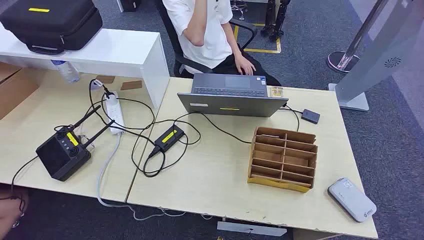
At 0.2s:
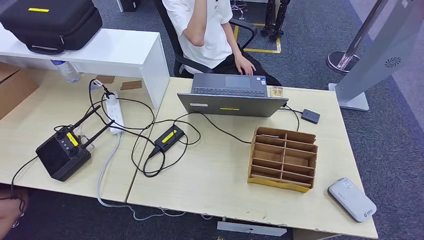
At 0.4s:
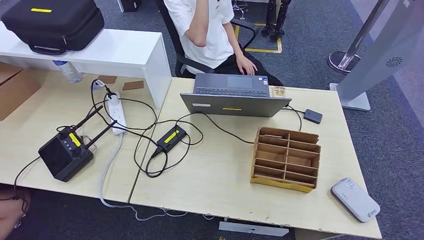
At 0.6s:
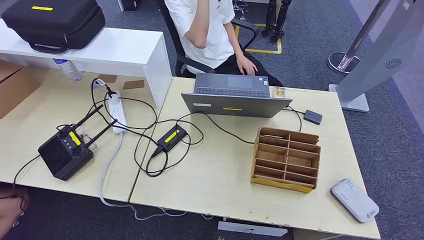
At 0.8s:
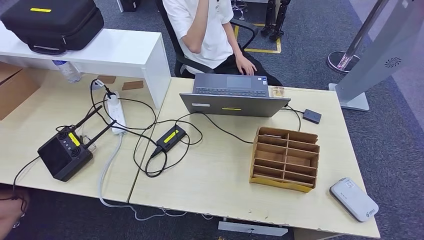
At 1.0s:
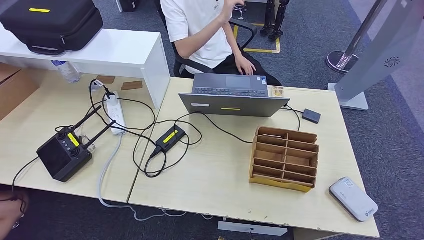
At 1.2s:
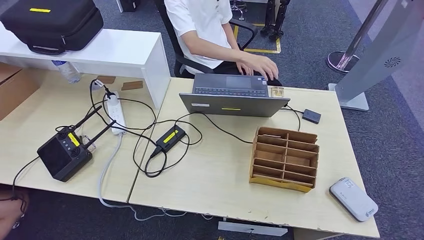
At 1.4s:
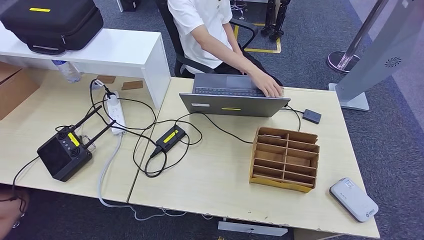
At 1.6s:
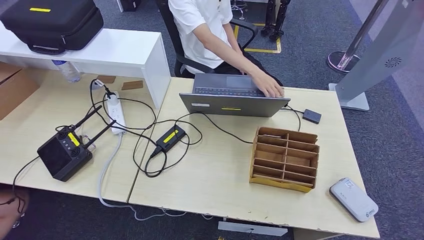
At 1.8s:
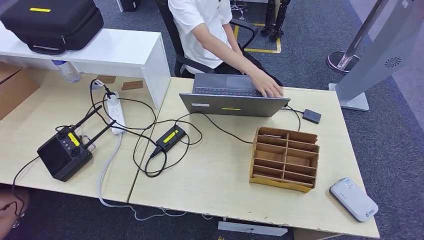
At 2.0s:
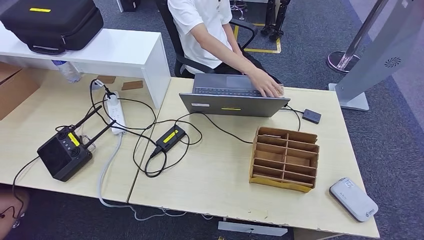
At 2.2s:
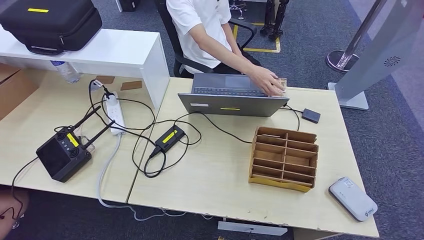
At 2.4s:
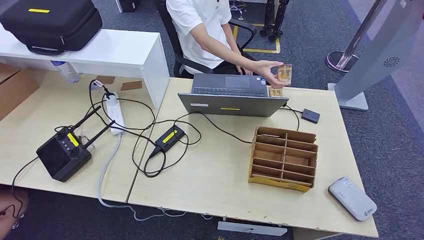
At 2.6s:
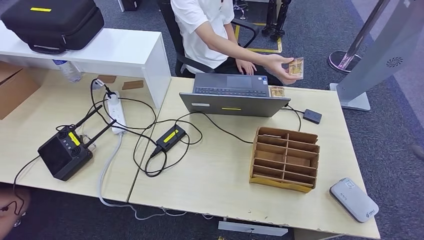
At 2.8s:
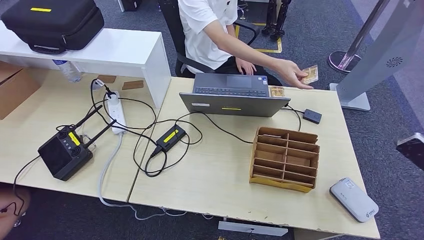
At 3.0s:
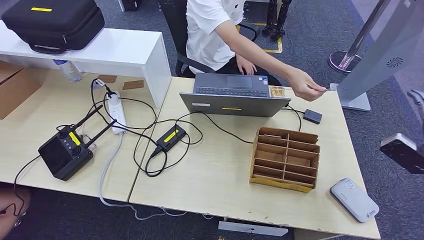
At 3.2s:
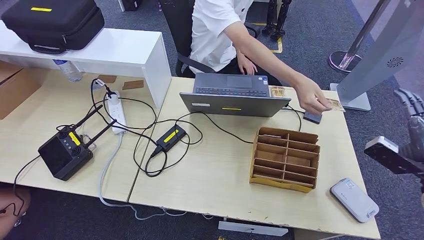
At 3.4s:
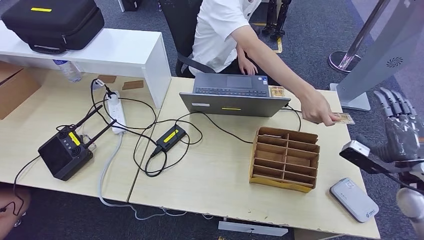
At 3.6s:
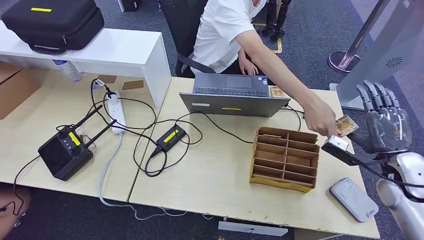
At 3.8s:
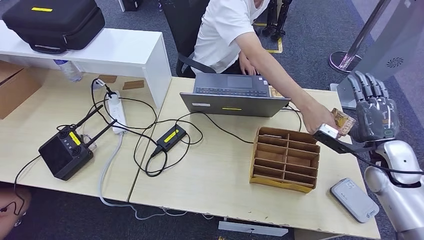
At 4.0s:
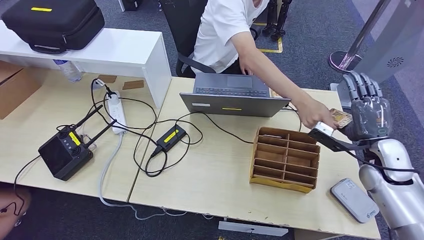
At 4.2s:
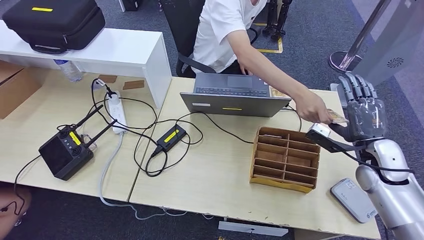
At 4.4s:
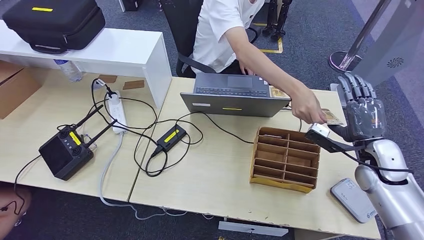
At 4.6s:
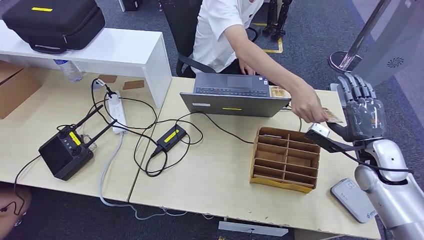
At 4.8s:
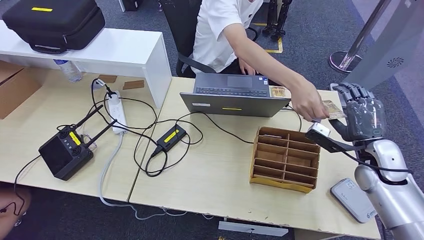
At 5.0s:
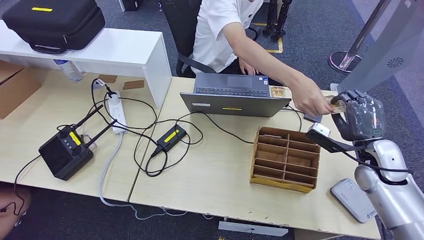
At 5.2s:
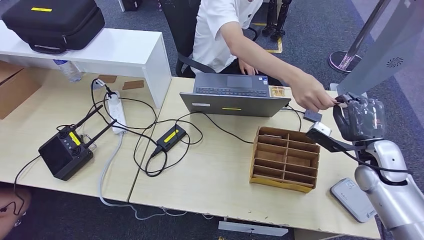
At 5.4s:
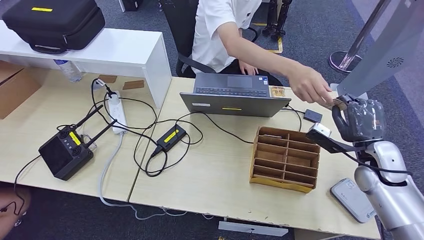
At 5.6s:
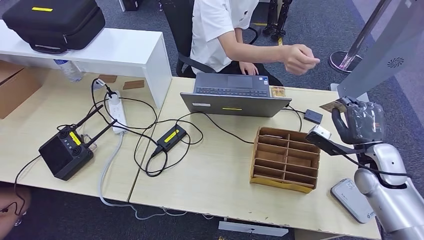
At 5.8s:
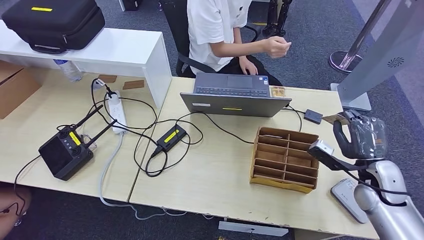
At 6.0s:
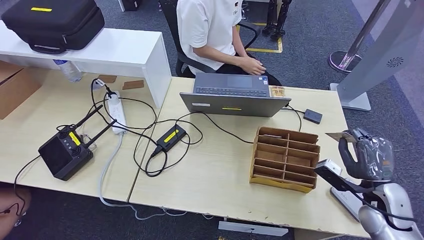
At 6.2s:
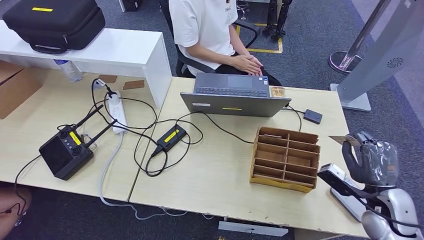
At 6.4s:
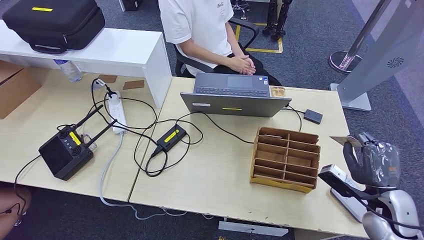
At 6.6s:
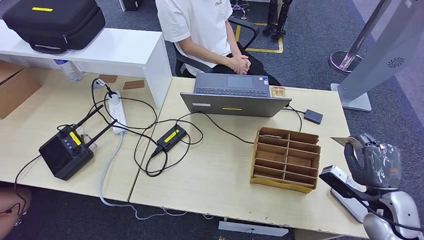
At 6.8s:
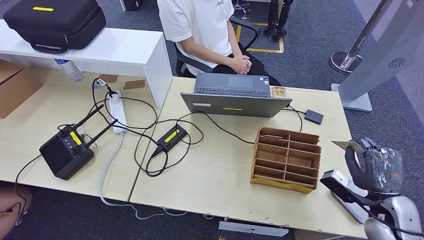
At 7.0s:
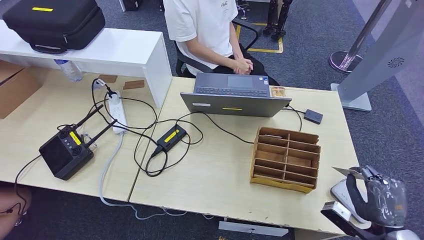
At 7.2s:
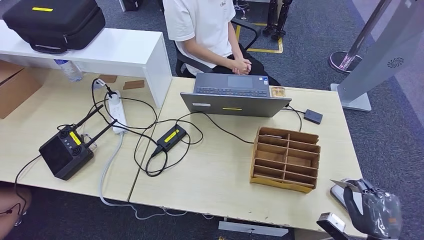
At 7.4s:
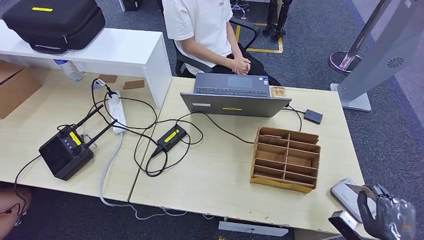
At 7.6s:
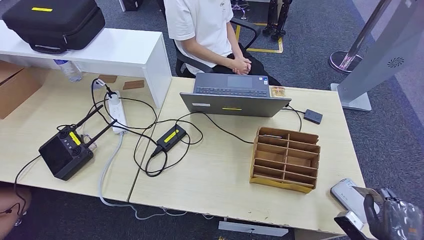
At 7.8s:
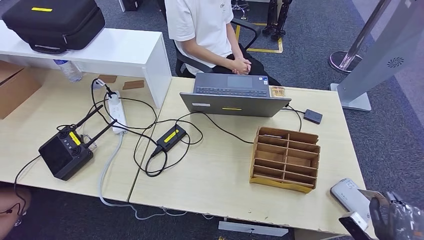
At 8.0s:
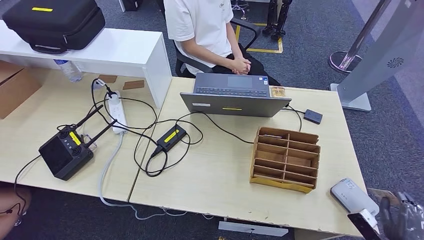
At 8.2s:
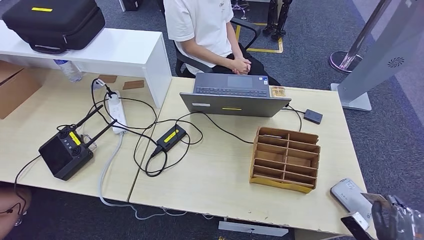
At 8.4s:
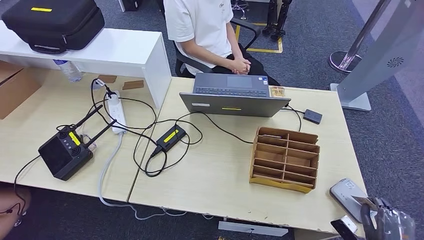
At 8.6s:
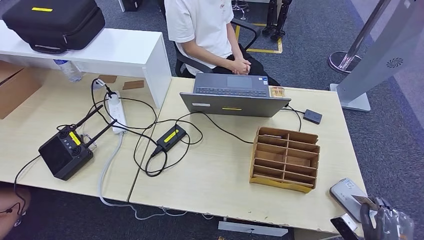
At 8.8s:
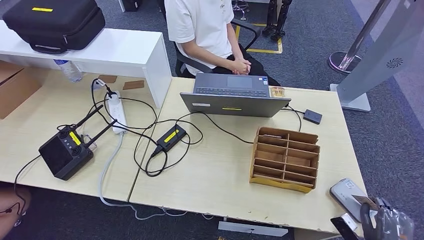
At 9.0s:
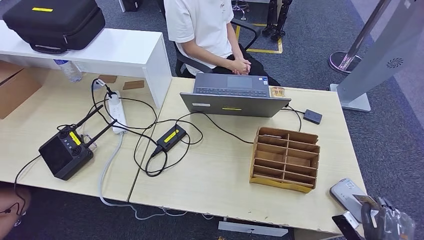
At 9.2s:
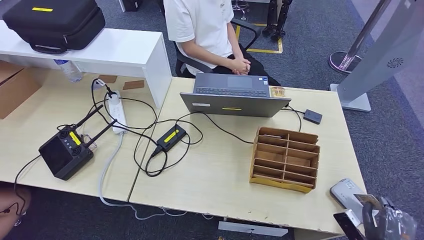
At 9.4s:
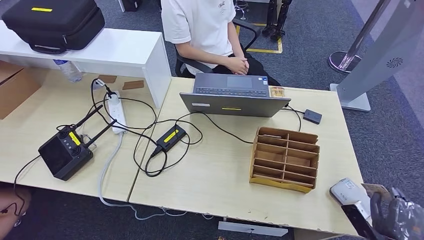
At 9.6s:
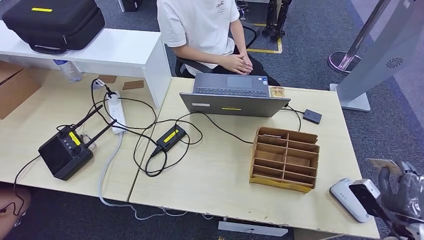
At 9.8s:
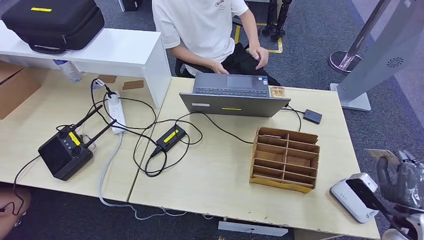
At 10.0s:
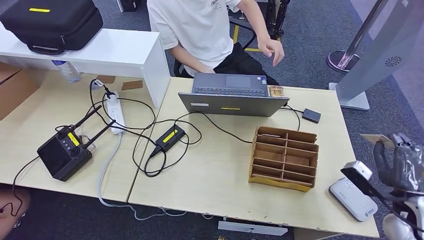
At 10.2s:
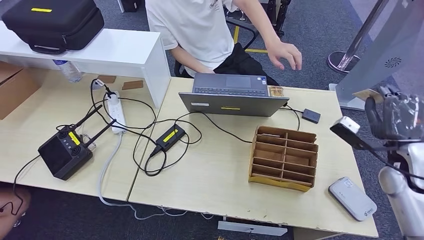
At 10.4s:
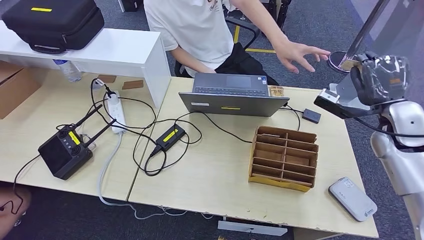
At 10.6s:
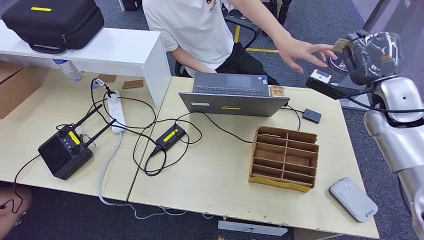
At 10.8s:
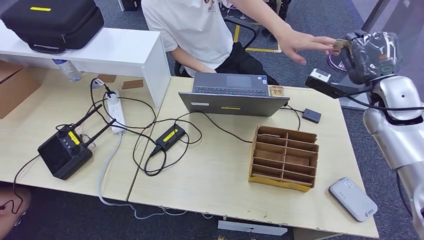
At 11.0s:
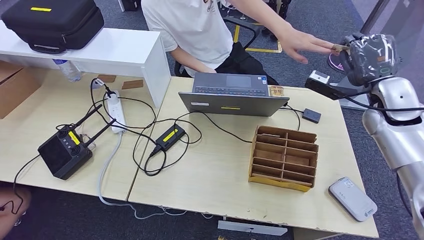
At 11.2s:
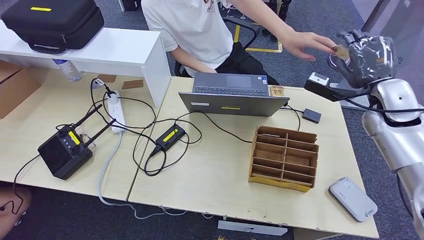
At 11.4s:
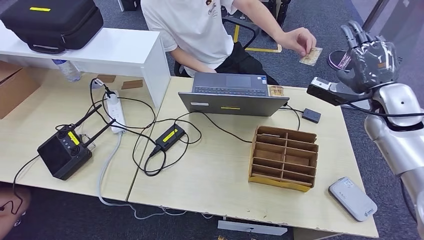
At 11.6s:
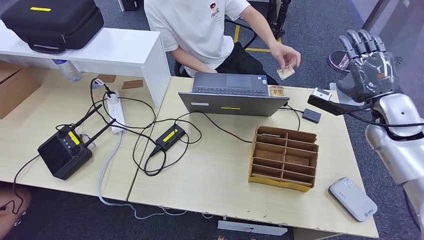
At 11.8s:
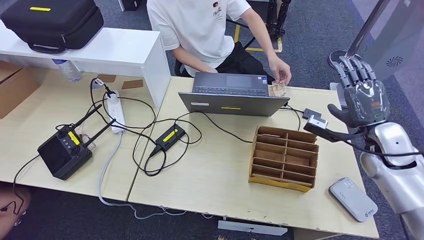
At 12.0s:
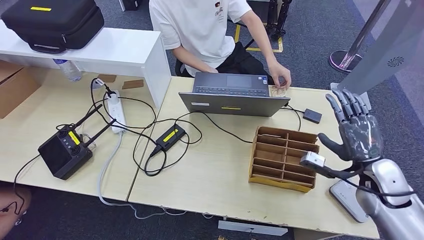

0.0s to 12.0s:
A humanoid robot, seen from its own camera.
Step, 0.0s to 2.8s: Take the ID card from the person's hand.
Step, 3.0s to 7.4s: Place the ID card on the card reader.
Step, 7.6s to 11.4s: Hand the ID card to the person.
1.6s to 3.0s: The right hand moves forward, to the left and upward, about 35 cm.
3.0s to 4.4s: The right hand heads to the left and forward, covering some 15 cm.
4.4s to 6.0s: The right hand moves backward and downward, approximately 10 cm.
6.0s to 7.6s: The right hand shifts about 15 cm backward and downward.
7.6s to 9.0s: The right hand travels downward by approximately 5 cm.
10.4s to 12.0s: The right hand moves downward and backward, roughly 10 cm.

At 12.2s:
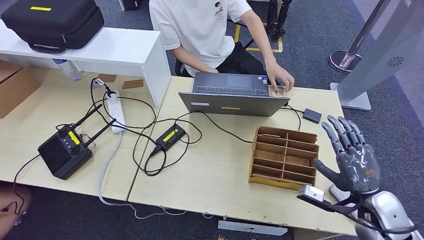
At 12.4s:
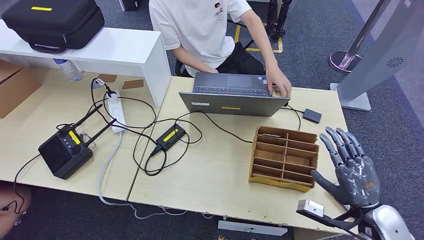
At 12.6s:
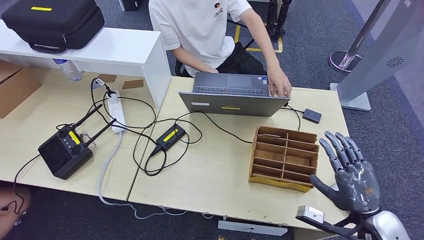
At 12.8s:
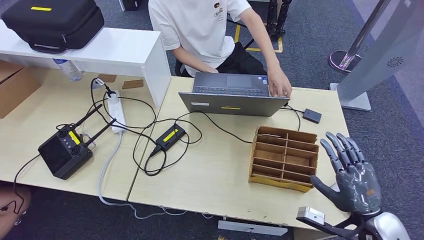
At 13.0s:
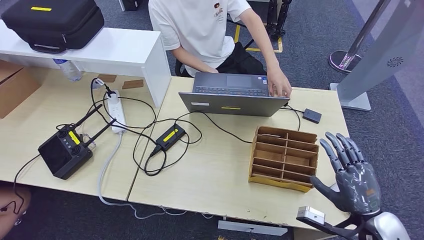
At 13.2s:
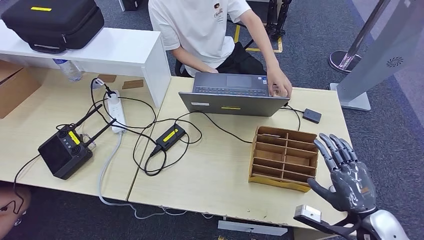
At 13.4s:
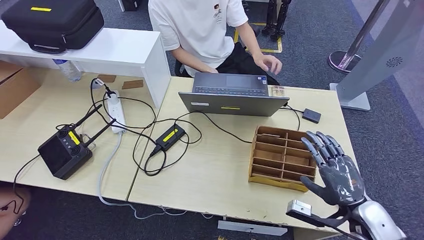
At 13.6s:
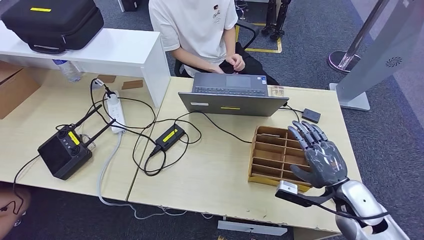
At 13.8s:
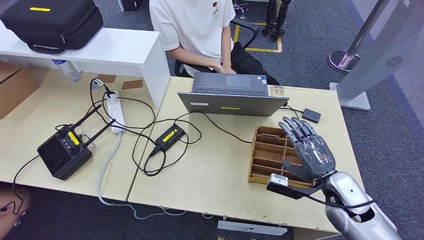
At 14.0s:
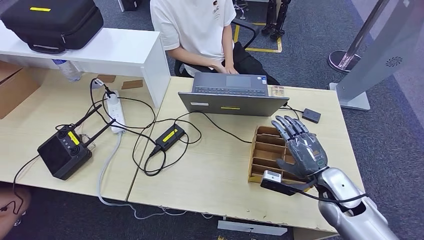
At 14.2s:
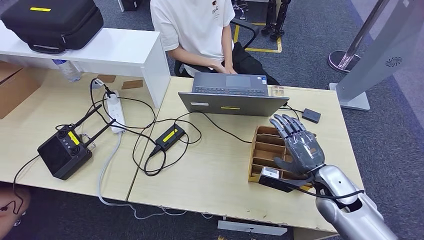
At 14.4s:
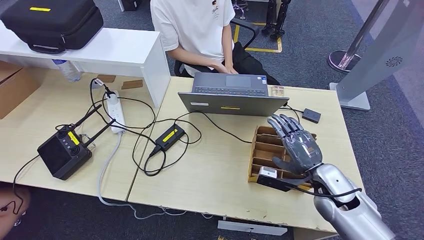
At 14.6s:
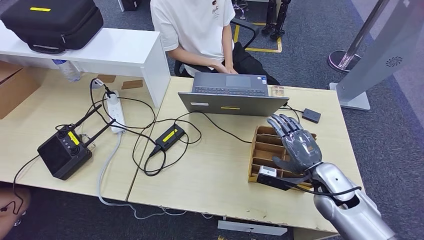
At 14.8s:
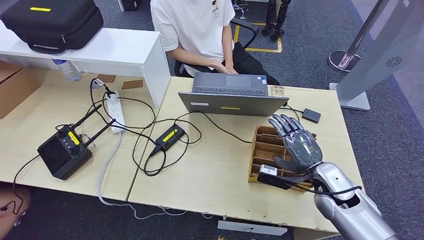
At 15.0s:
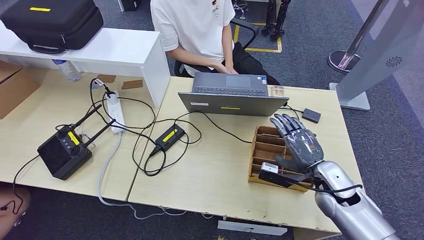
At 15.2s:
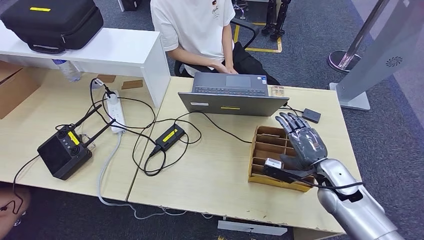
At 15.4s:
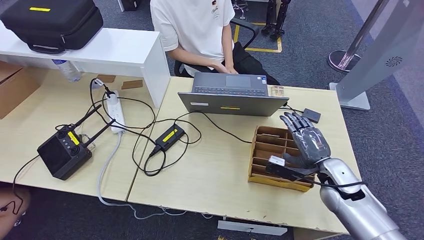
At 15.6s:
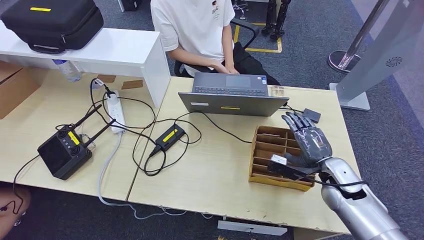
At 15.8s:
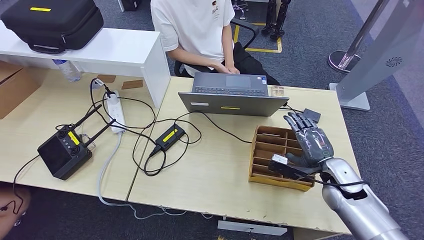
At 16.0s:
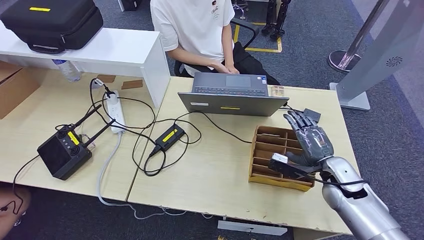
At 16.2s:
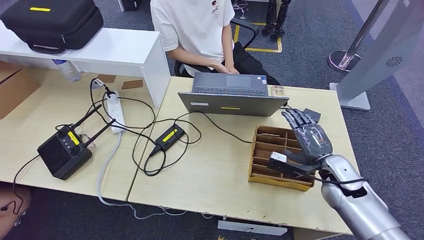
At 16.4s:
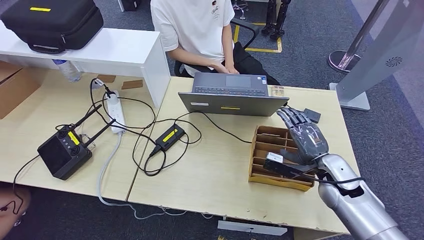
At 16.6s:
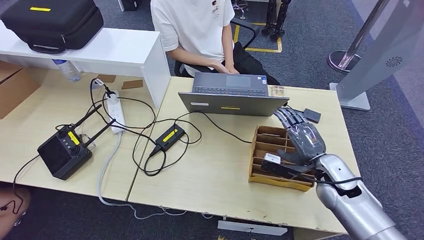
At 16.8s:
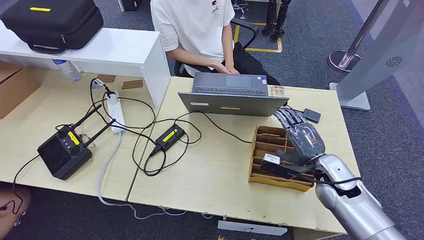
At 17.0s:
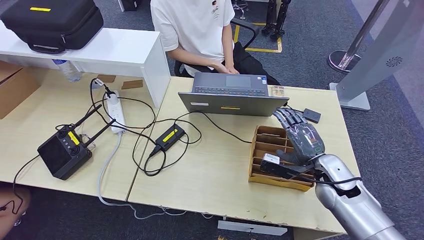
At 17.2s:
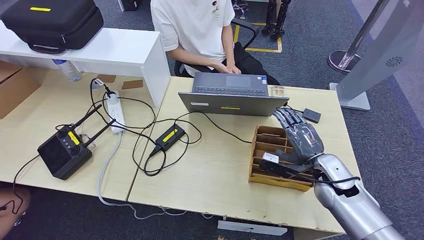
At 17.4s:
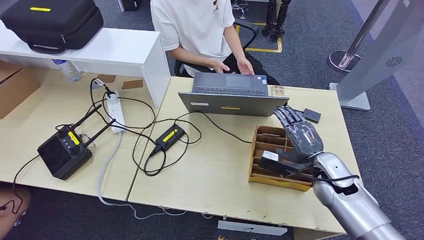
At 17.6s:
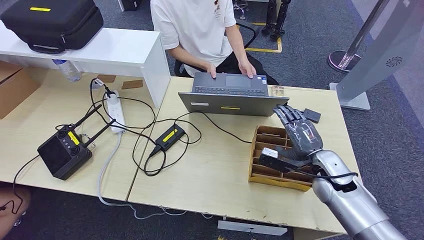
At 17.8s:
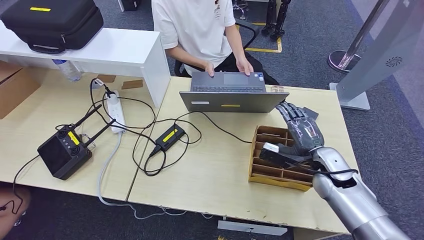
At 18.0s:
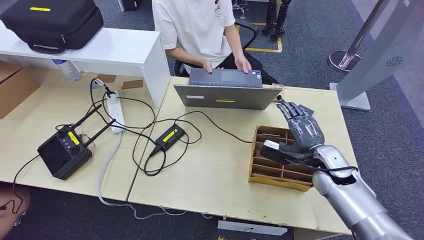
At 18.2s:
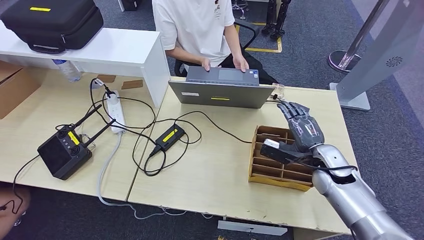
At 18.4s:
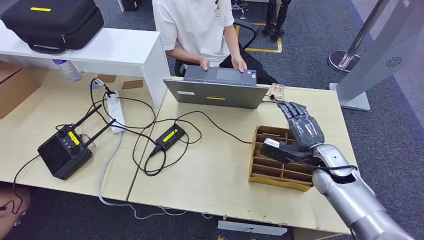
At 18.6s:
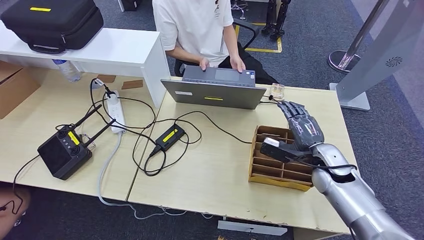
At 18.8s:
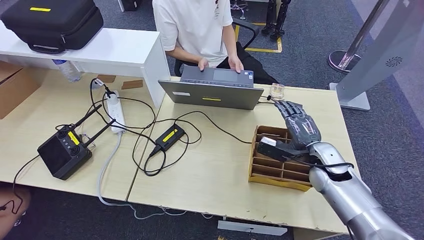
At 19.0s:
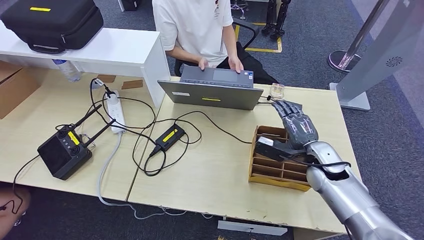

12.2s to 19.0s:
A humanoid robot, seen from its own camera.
12.2s to 13.6s: The hands make only small movements.
13.6s to 15.0s: The right hand moves forward, roughly 5 cm.
15.0s to 19.0s: There are only small adjustments of the hands.
